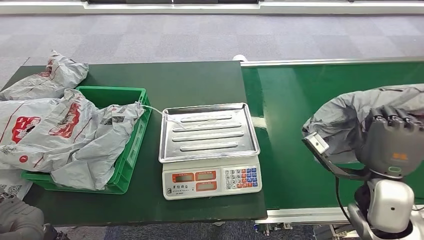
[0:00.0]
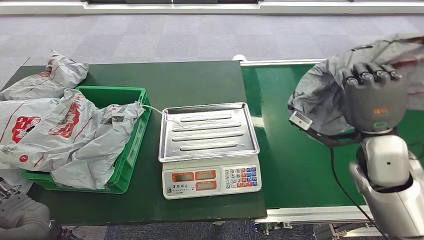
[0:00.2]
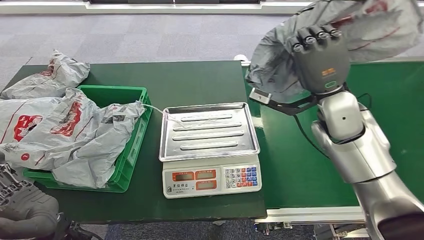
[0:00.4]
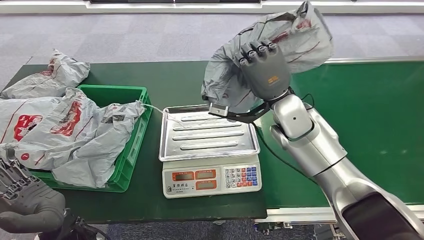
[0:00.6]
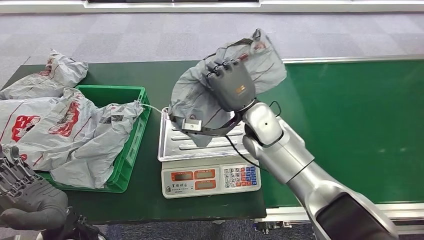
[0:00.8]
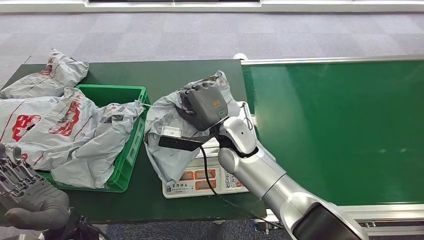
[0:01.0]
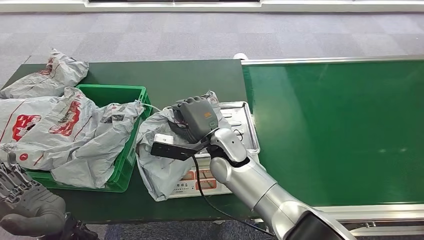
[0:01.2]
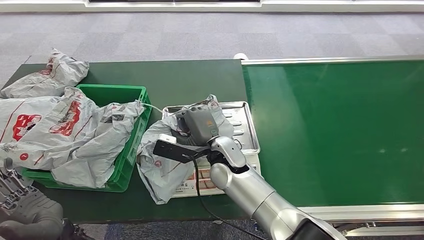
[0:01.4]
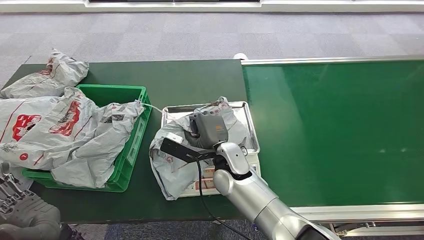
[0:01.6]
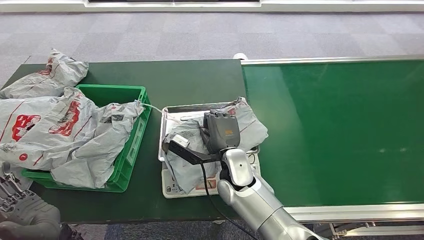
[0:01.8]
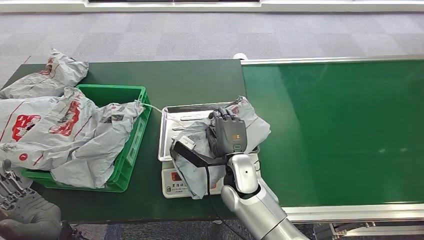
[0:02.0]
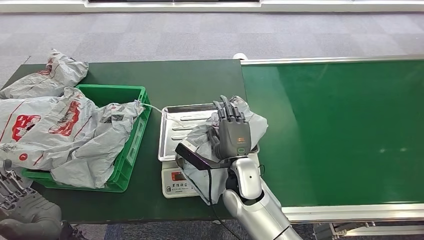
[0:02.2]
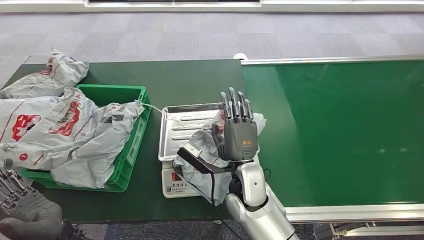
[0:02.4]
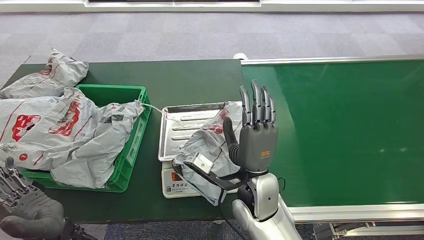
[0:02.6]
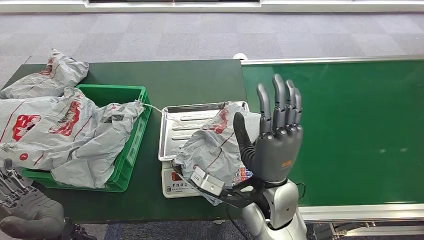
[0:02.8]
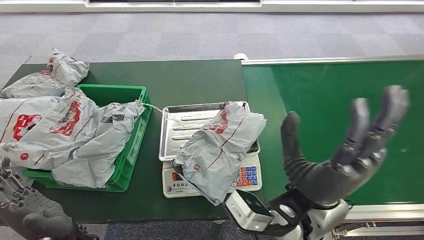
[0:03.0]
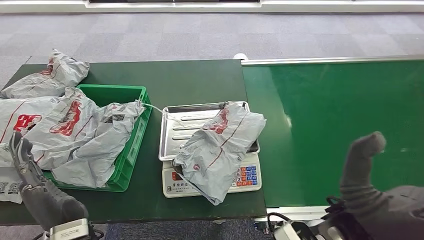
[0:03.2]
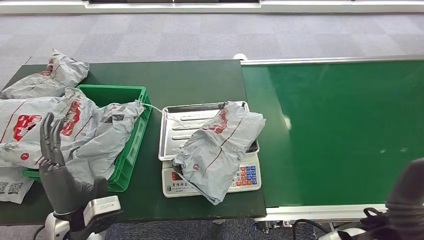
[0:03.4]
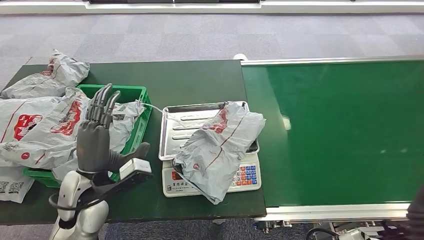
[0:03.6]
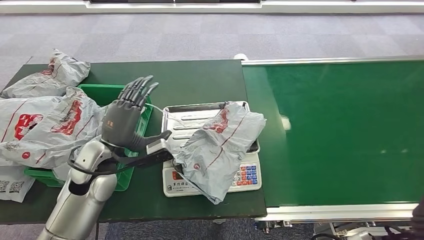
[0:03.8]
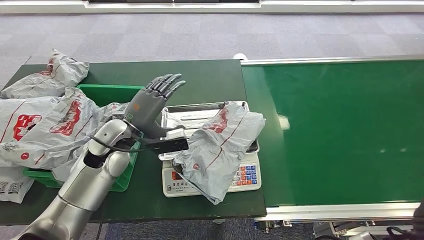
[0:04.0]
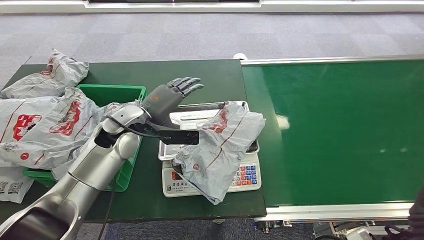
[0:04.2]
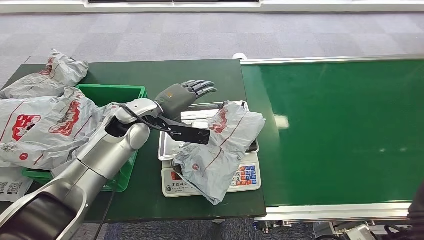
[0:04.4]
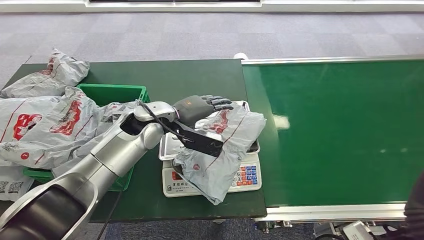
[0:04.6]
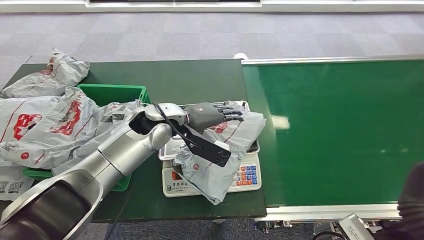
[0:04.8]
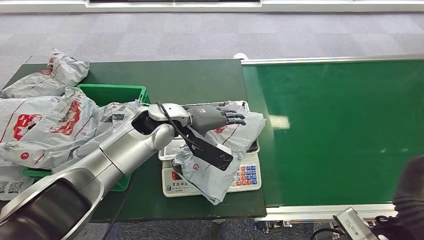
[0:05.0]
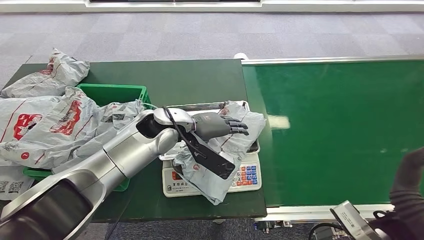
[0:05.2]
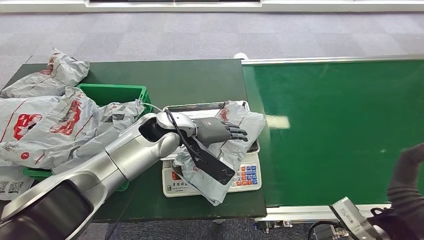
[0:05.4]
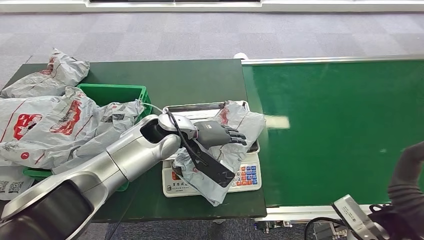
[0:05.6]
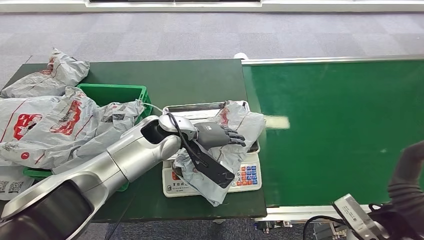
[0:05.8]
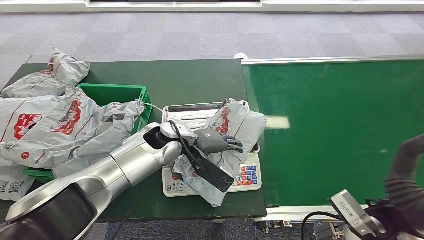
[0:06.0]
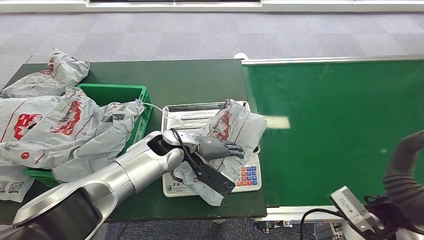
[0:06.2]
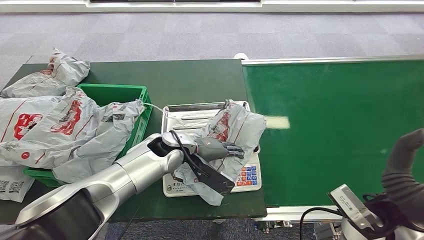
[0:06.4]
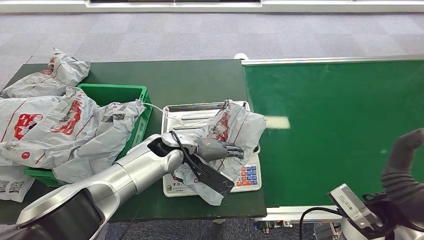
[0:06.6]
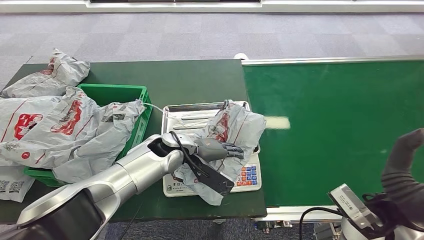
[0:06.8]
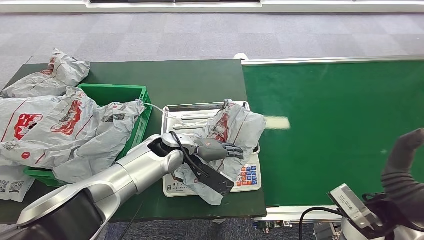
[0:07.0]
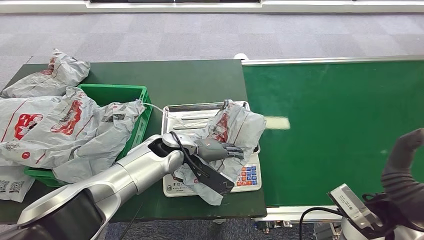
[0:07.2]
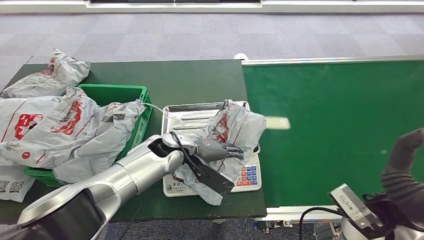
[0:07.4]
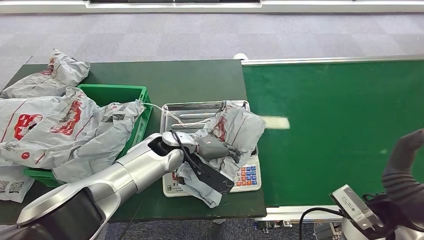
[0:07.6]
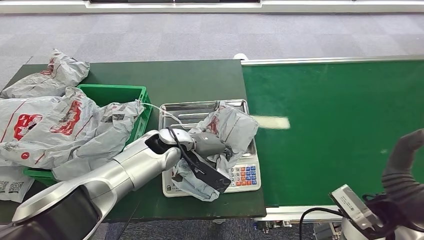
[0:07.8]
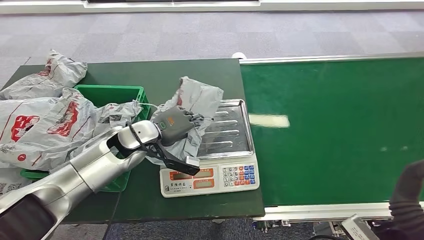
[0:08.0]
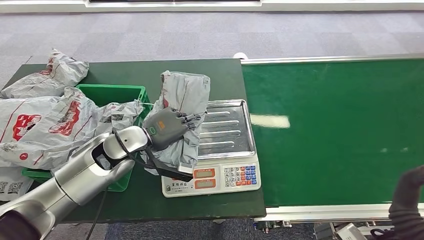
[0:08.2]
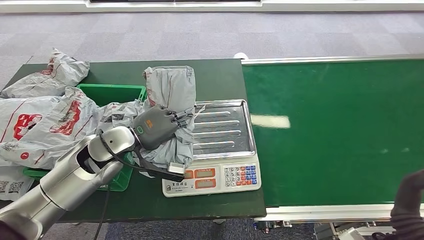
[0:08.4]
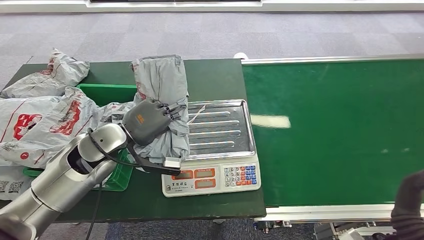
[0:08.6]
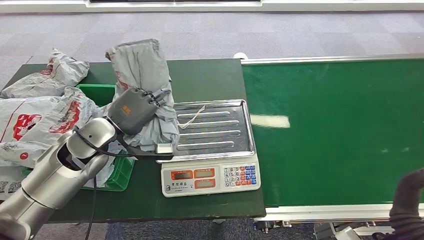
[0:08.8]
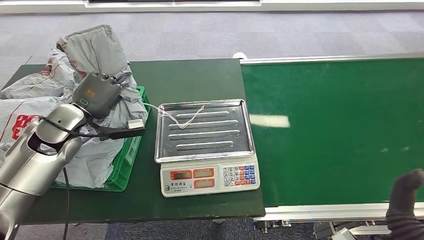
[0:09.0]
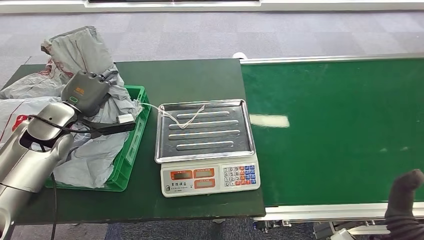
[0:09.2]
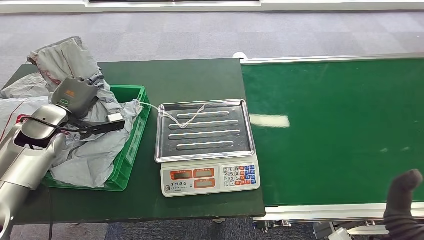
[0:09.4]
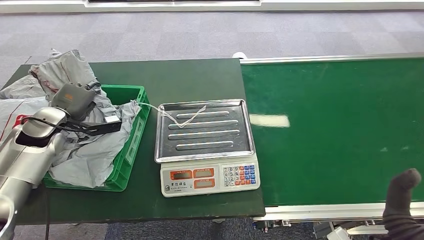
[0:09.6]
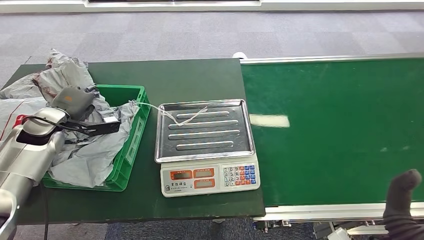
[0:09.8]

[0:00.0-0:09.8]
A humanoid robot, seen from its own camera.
Step, 0:00.2 to 0:03.0: Place the package onto the inbound machine.
Step, 0:03.2 to 0:08.4: Pick up the package from the inbound machine.
Step, 0:08.6 to 0:09.8: Place the package into the parcel locker.
0:01.4 to 0:02.8: The right hand moves backward and to the right, about 15 cm.
0:02.8 to 0:04.2: The left hand goes roughly 25 cm forward. Meanwhile the right hand goes some 20 cm to the right and backward.
0:04.2 to 0:05.6: The left hand goes about 10 cm to the right.
0:05.6 to 0:07.0: The left hand is displaced downward by approximately 5 cm.
